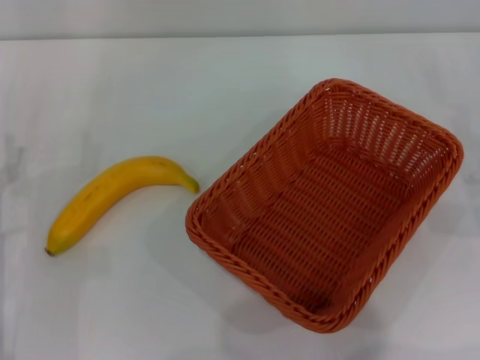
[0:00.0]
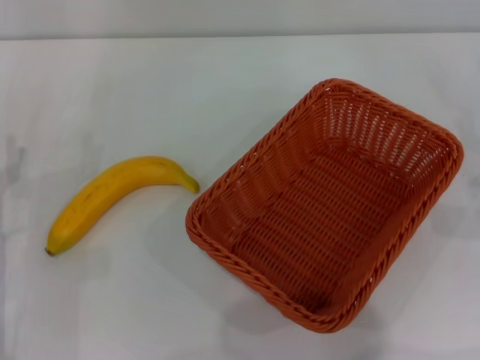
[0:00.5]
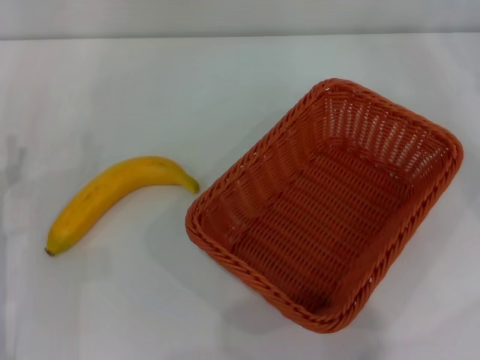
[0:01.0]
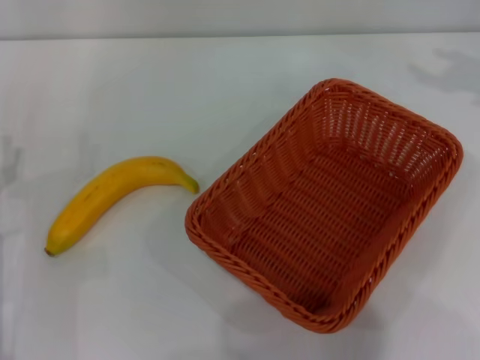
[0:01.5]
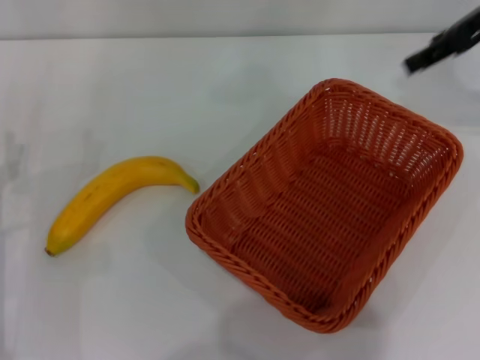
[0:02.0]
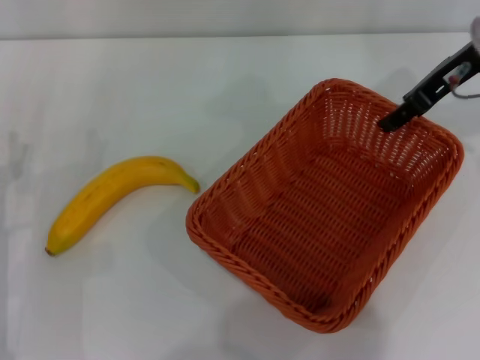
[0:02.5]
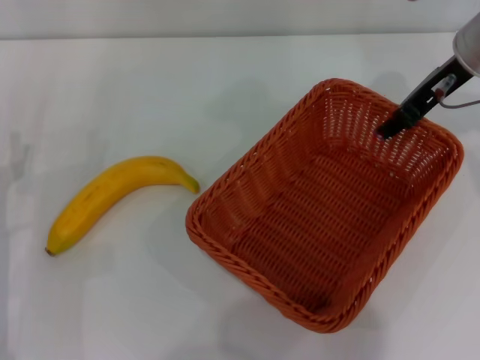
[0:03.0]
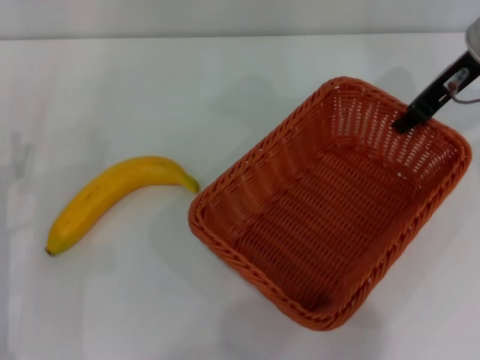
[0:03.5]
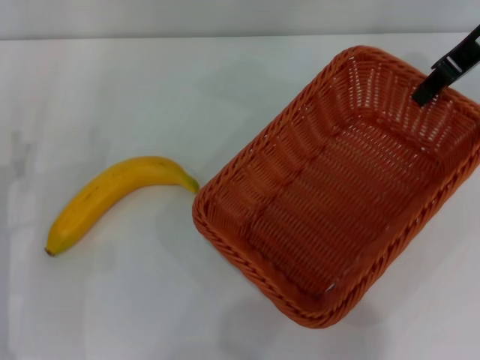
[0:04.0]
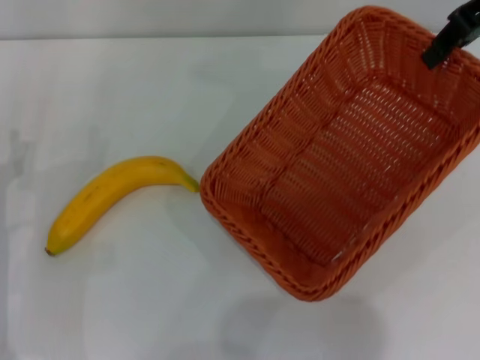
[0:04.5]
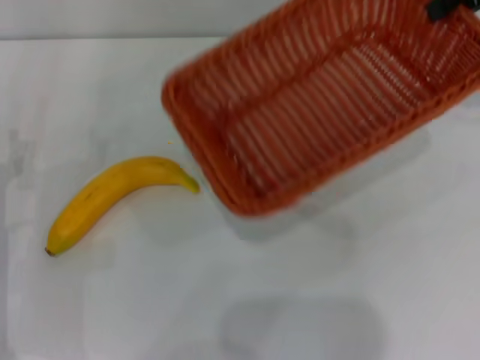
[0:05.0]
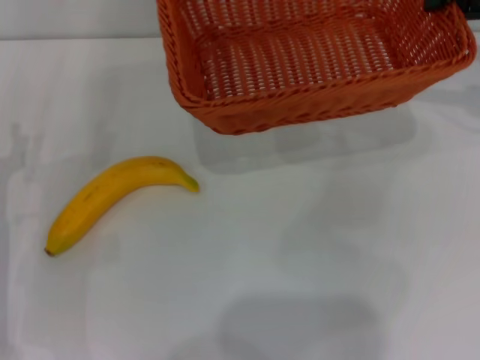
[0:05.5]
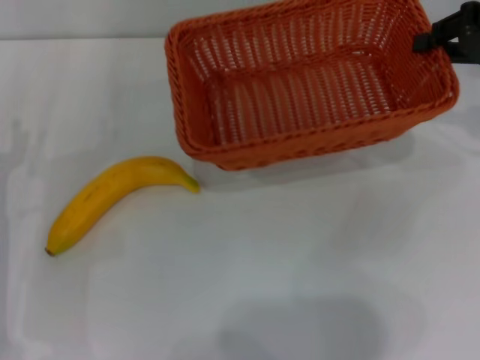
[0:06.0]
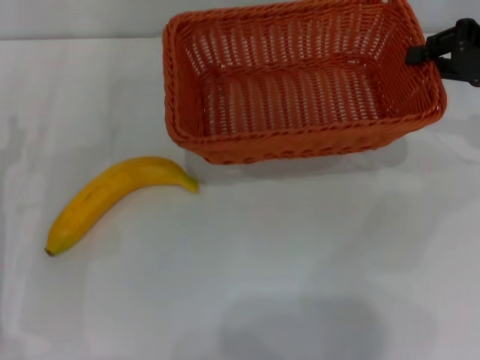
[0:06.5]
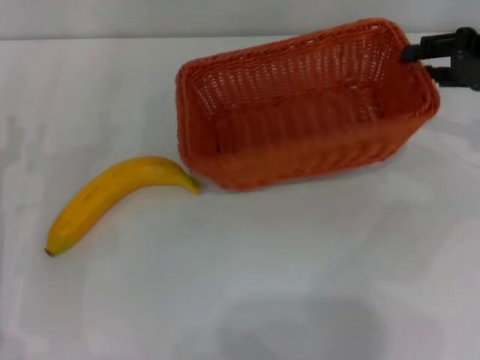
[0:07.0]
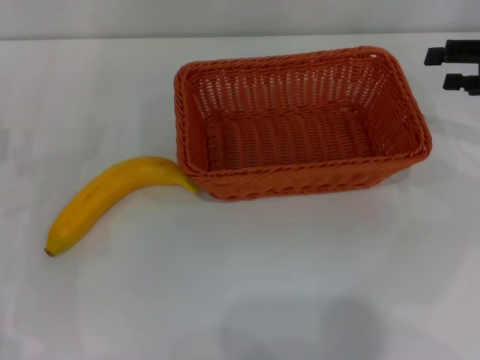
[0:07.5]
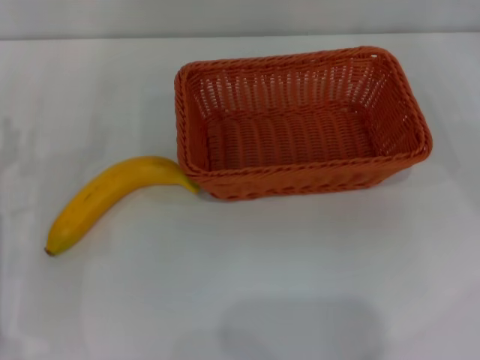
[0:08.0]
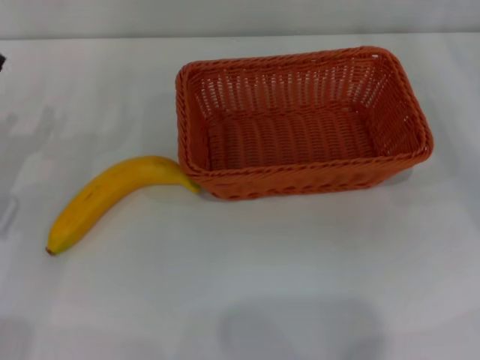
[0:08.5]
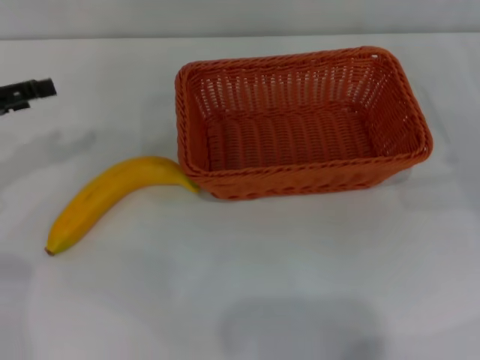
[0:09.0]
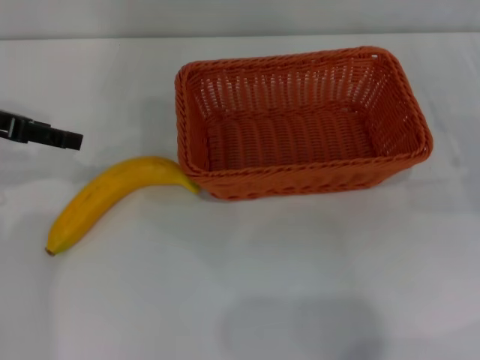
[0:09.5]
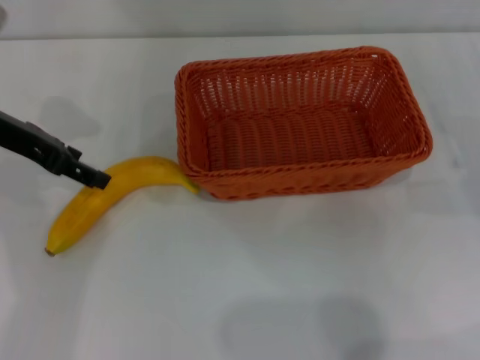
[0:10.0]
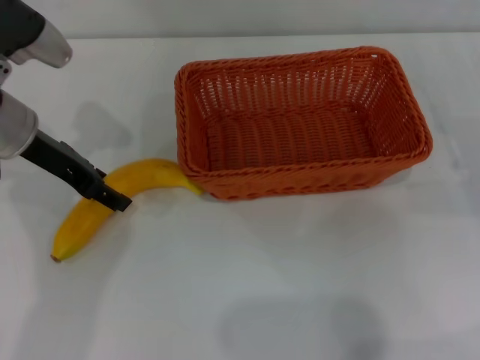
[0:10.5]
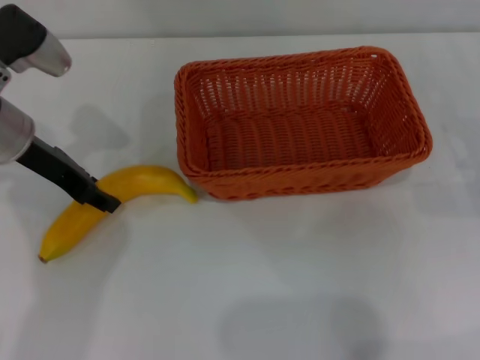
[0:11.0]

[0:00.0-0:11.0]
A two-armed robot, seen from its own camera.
Step, 0:00.0 to 0:03.5: Pick up the light basket with the right gripper.
Step, 0:04.0 to 0:07.0: Place the light basket in the center of view with the right gripper.
0:00.0 to 0:02.0: The right gripper shifts roughly 25 cm upward, forward and to the left.
0:02.0 to 0:03.5: The right gripper is displaced downward by some 5 cm, and closes up.
0:03.5 to 0:05.5: The right gripper goes about 10 cm to the right and upward.
0:05.5 to 0:07.5: The right gripper goes some 10 cm downward and backward, and opens up.
0:07.5 to 0:09.0: The right gripper travels downward by some 10 cm; the left gripper moves upward and forward, about 10 cm.
0:09.0 to 0:11.0: The left gripper moves to the right, some 10 cm, and closes.

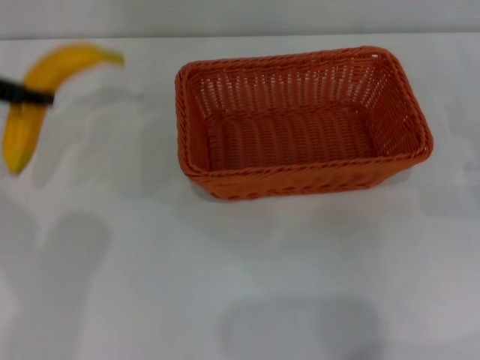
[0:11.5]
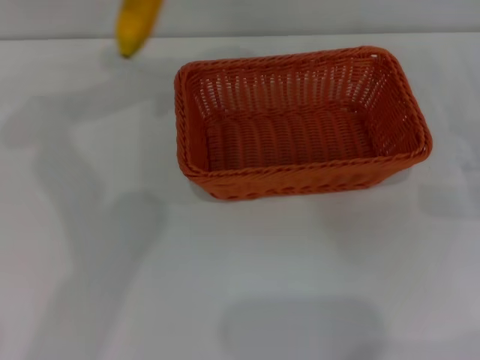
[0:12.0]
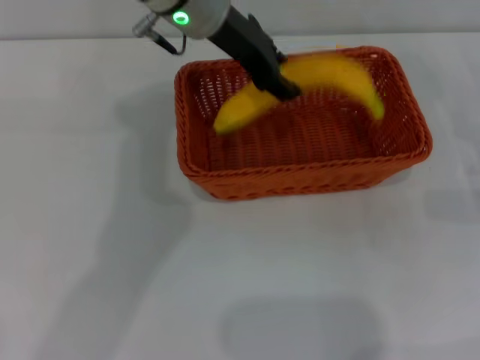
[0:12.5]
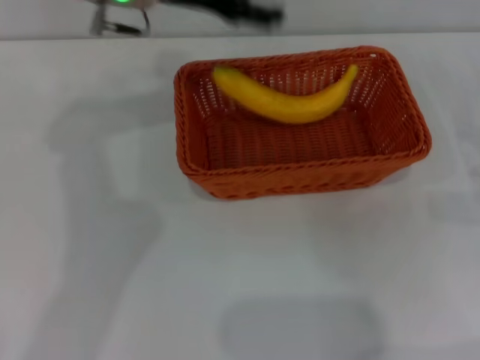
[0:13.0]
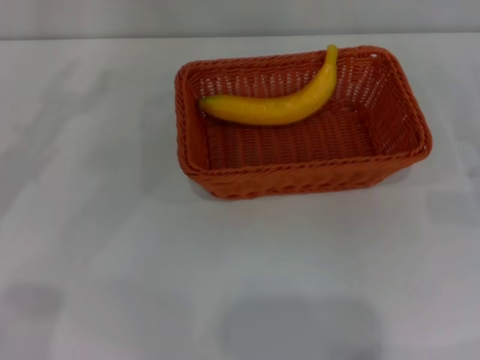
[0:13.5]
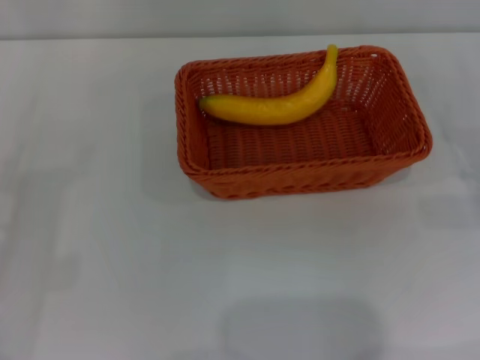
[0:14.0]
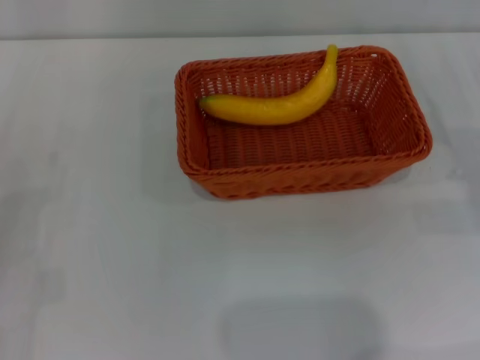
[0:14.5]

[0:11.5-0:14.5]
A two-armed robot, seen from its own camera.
Step, 0:11.5 to 0:12.5: Place the banana into the light basket with the left gripper.
0:11.5 to 0:13.0: The left gripper travels to the right by roughly 20 cm, and opens its fingers.
0:13.0 to 0:14.5: The left gripper heads backward, downward and to the left, covering about 35 cm.
